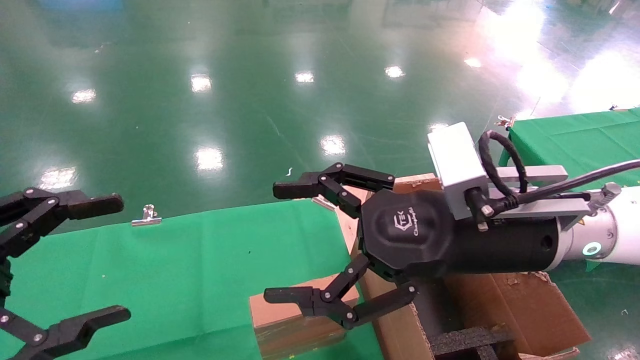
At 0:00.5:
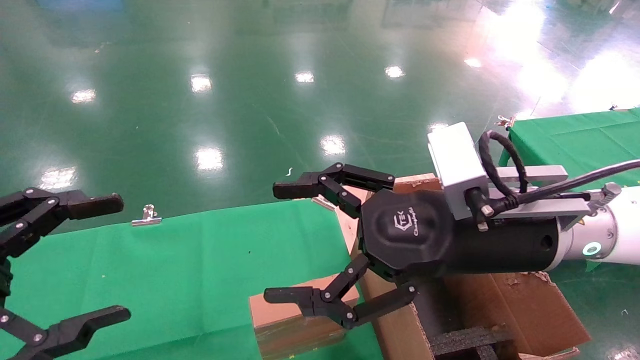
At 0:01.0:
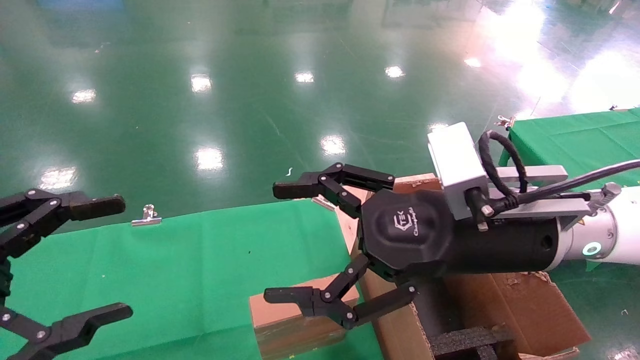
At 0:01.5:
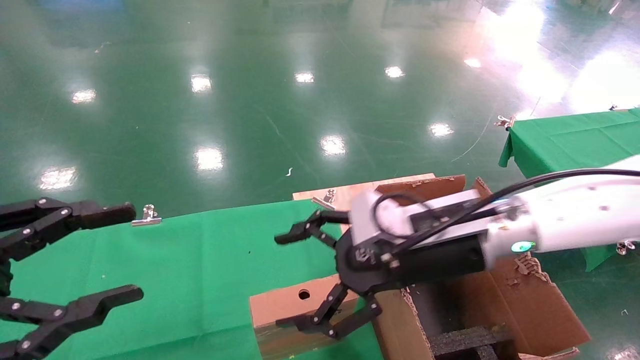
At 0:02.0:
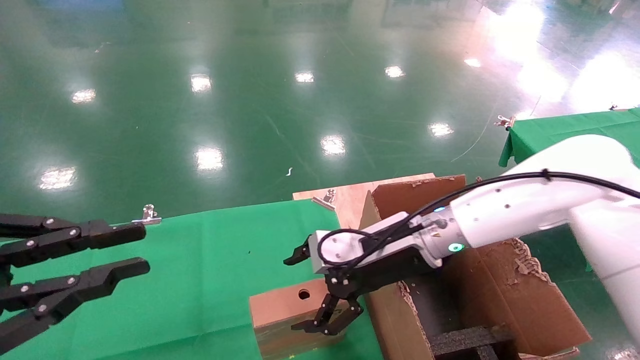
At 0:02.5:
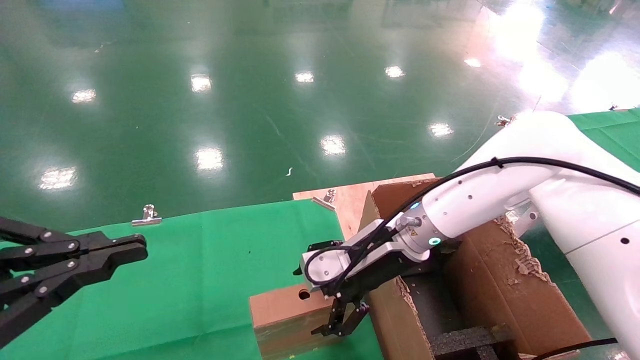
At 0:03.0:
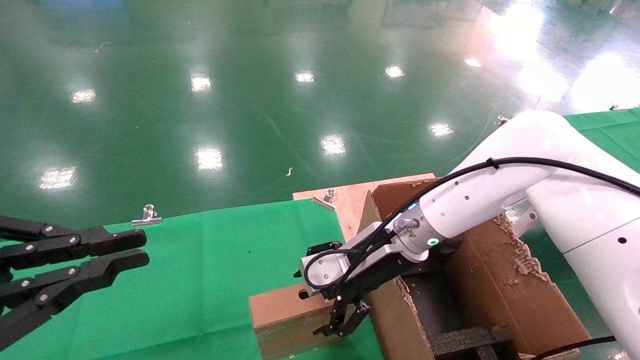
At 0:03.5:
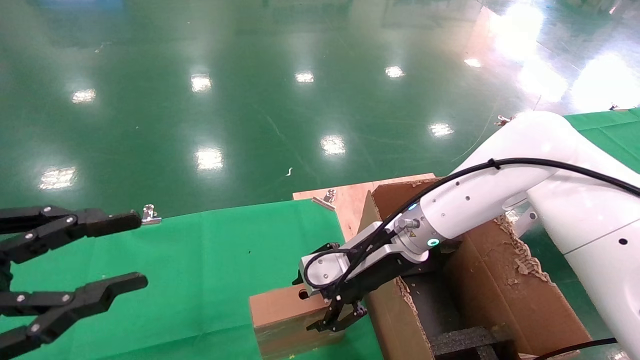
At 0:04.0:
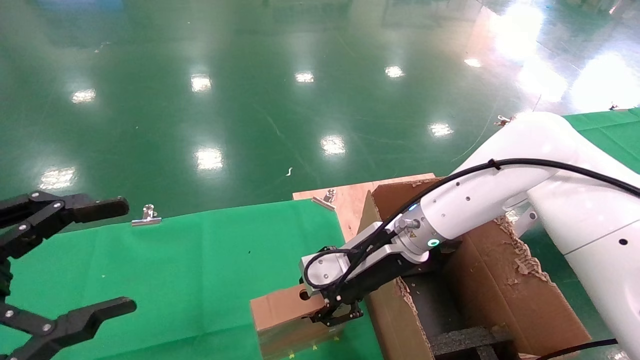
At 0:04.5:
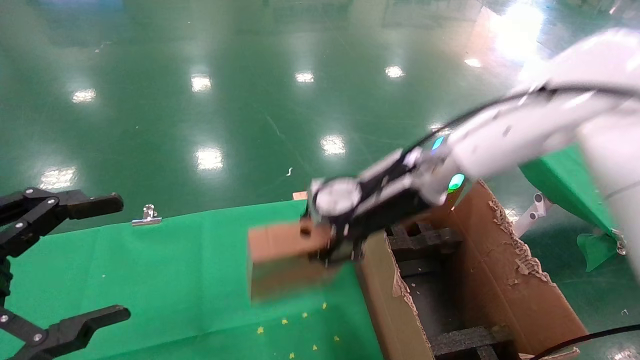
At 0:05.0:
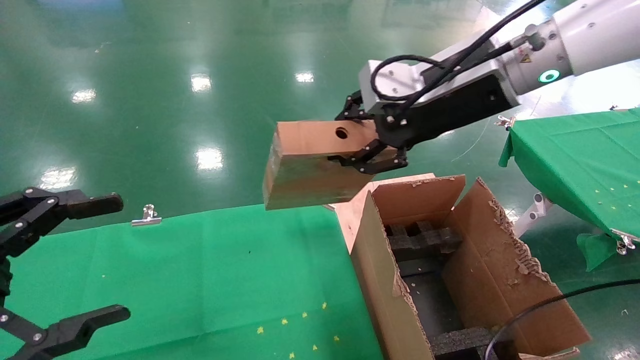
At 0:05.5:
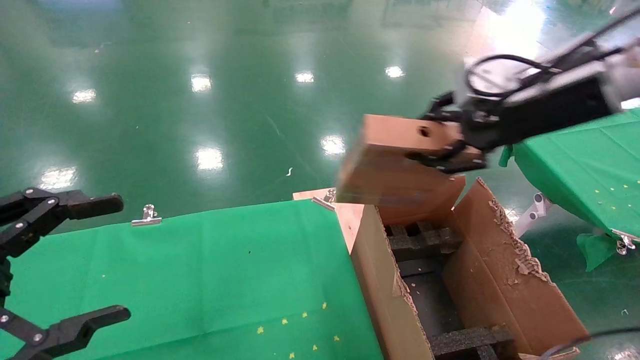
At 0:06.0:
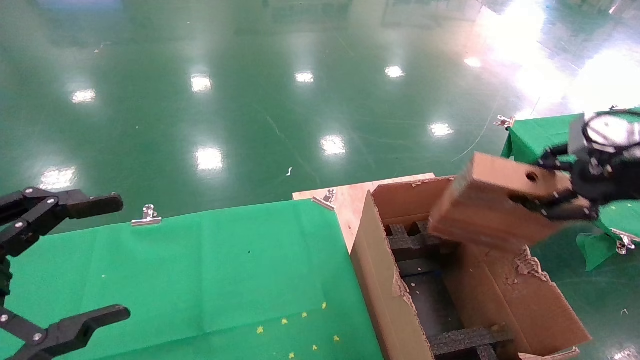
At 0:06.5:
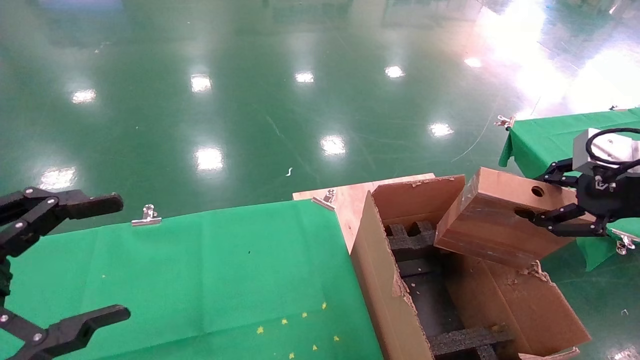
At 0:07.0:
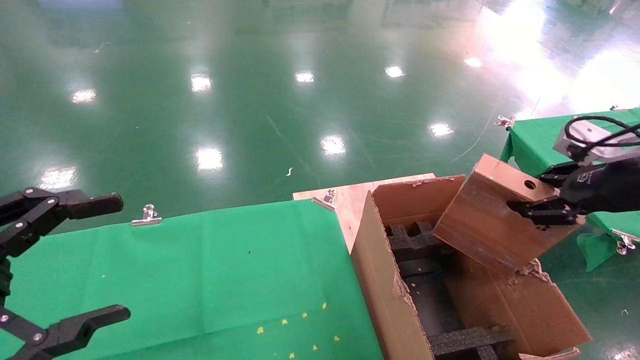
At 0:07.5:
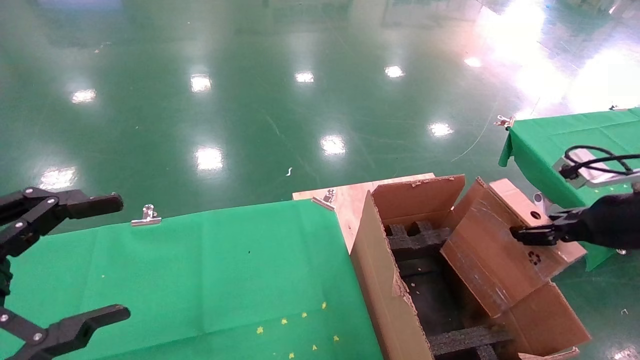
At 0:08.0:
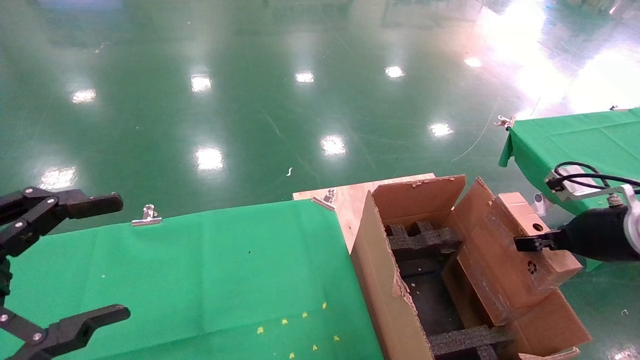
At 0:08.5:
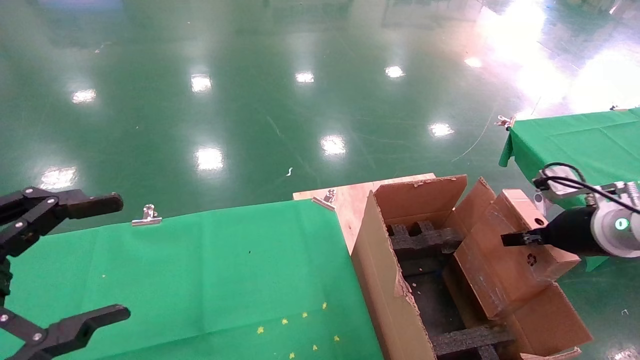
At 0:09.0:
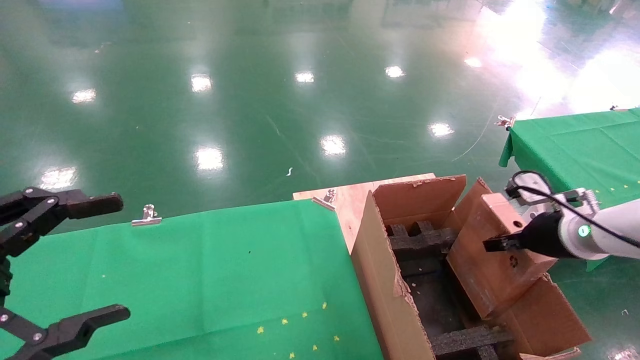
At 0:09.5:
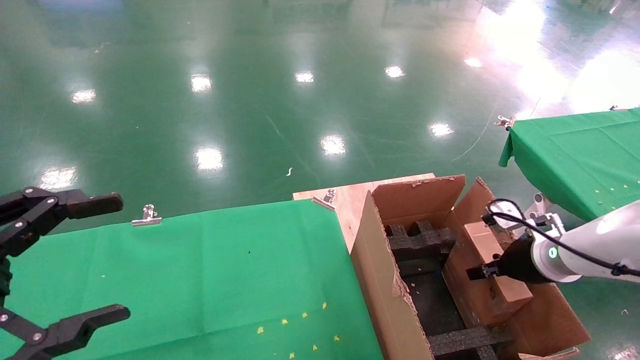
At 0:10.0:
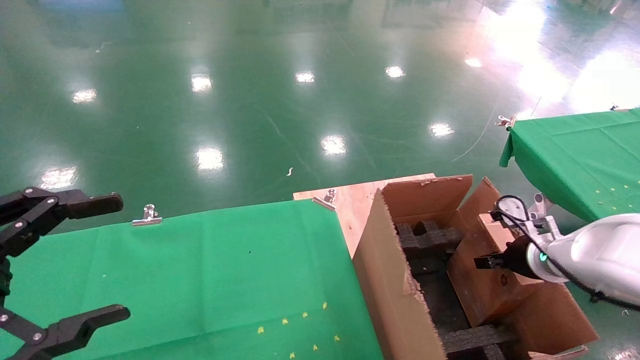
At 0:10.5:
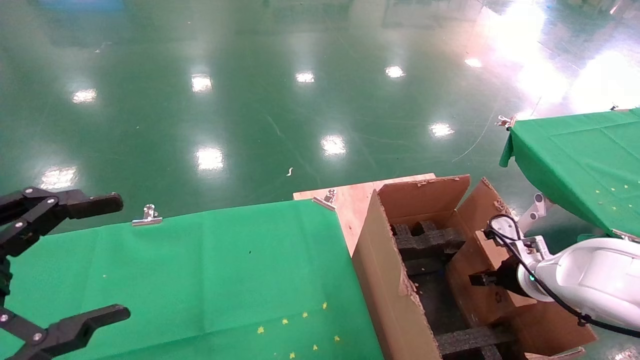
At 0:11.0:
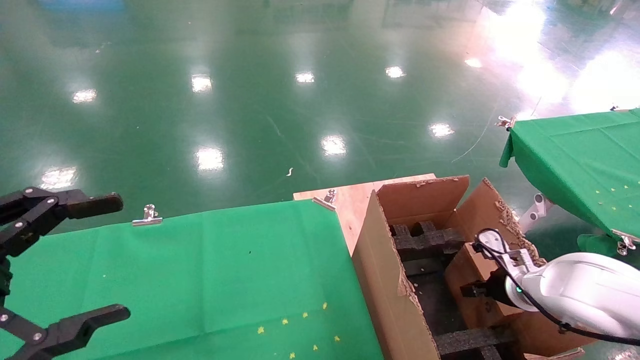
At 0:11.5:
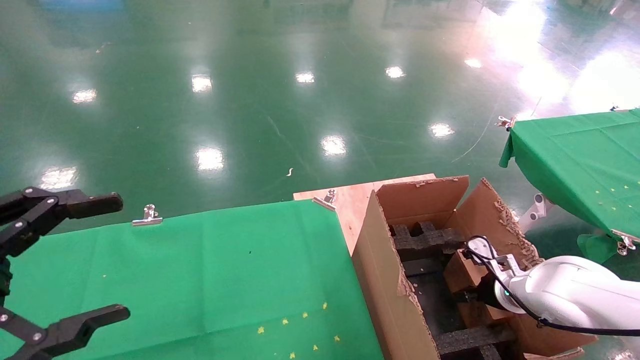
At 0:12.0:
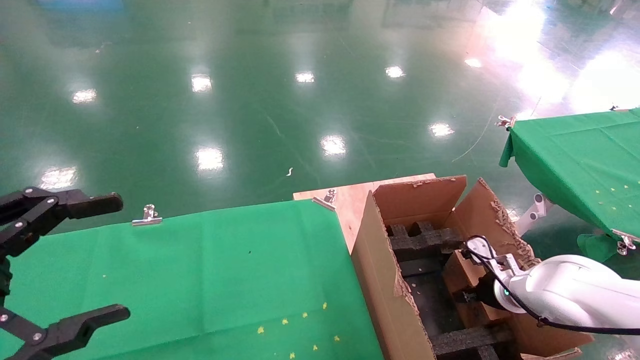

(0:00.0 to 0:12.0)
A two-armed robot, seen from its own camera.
Task of the whole recording: using a robotic arm to pick up a cardboard box and palace it the carton.
Step, 0:01.0 - 0:03.5: Pick up the mouse and the power cord paper box.
0:00.0 - 0:02.0: The right gripper travels forward and downward by roughly 15 cm, while the left gripper closes its fingers.
0:02.0 - 0:04.0: The left gripper opens its fingers; the right gripper closes up.
0:04.0 - 0:06.0: The right gripper is displaced to the right, upward and backward by about 35 cm.
0:06.0 - 0:08.0: The right gripper travels downward by about 10 cm.
0:08.0 - 0:10.0: The right gripper shifts about 10 cm downward and forward.
0:10.0 - 0:12.0: The right gripper heads downward, covering roughly 10 cm.

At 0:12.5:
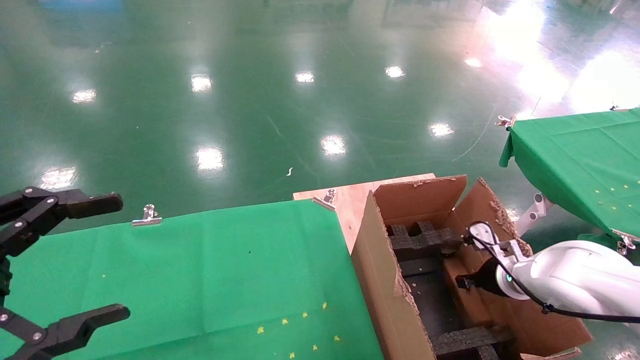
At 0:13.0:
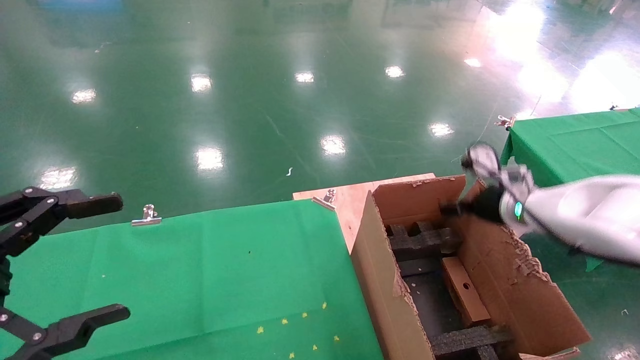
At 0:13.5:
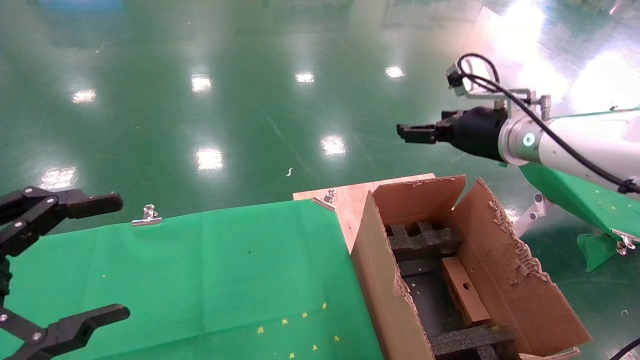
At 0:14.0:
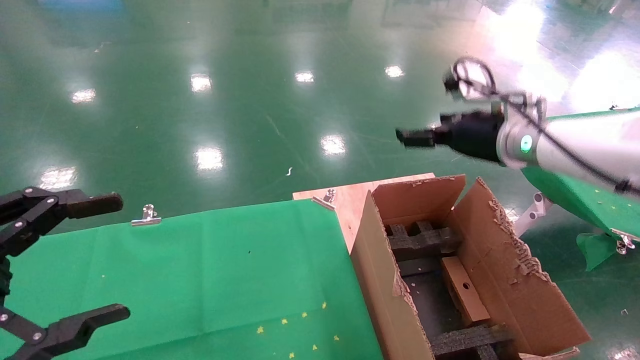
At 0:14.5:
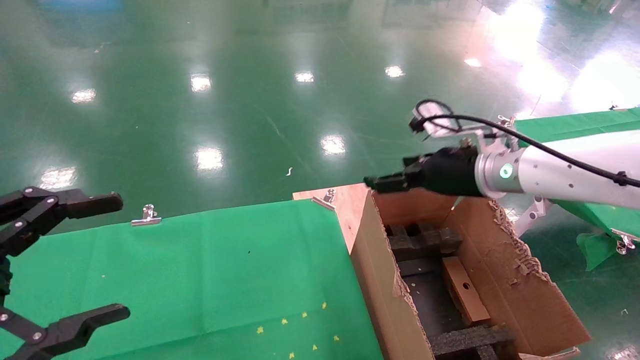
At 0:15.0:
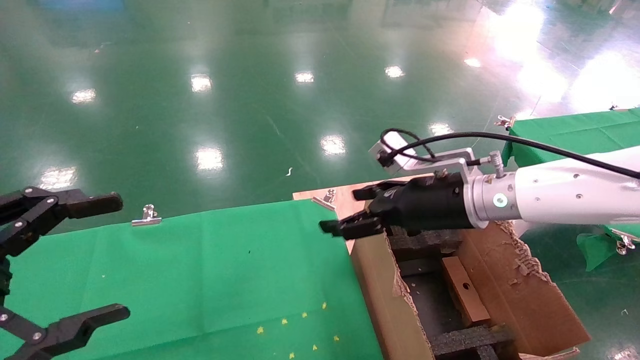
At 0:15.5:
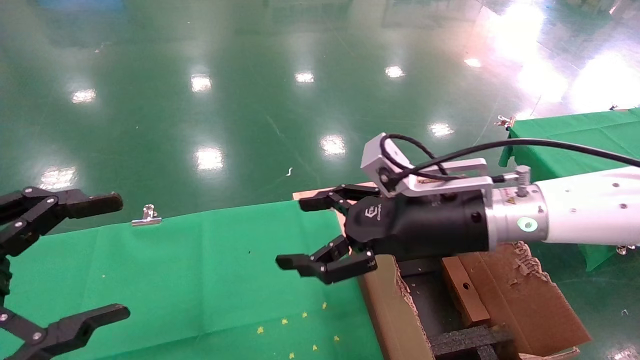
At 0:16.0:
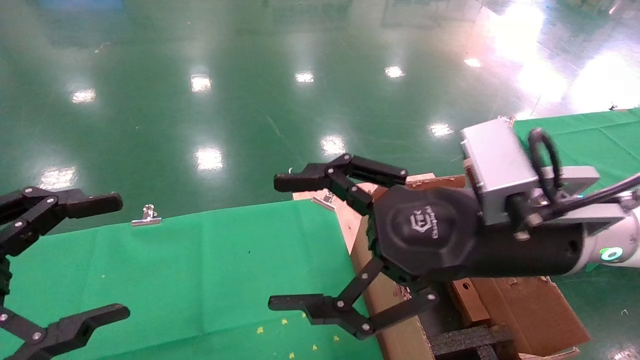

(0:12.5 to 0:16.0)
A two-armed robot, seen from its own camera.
Task of the whole recording: using a robotic arm to pick up a cardboard box and palace it the carton.
0:12.5 - 0:14.5: The right gripper is displaced upward and to the left by approximately 25 cm, and opens up.
0:14.5 - 0:16.0: The right gripper moves backward and to the left, some 15 cm.

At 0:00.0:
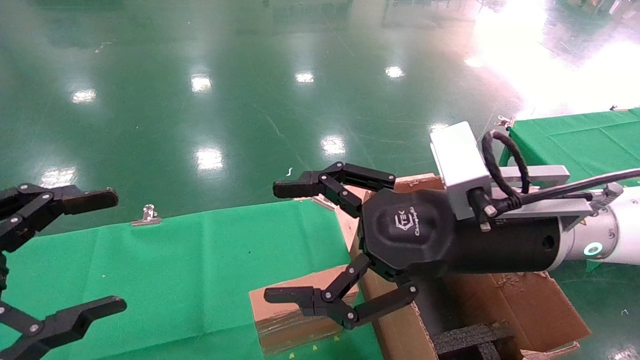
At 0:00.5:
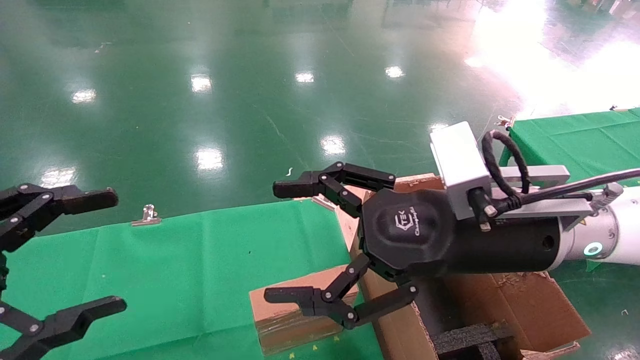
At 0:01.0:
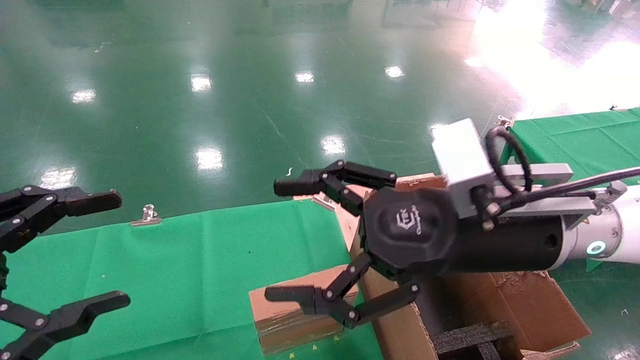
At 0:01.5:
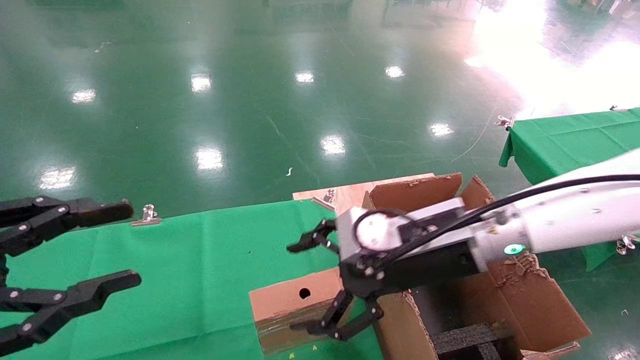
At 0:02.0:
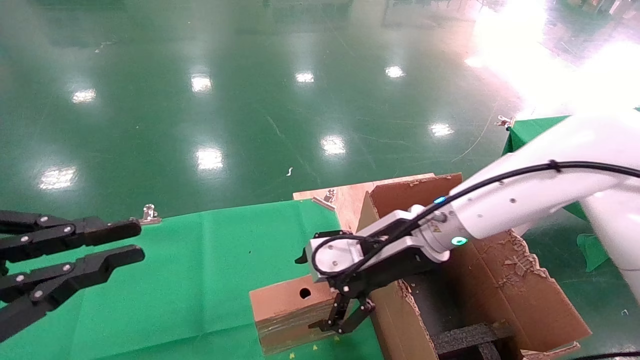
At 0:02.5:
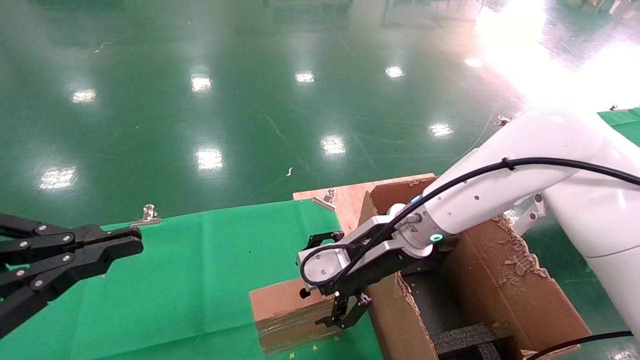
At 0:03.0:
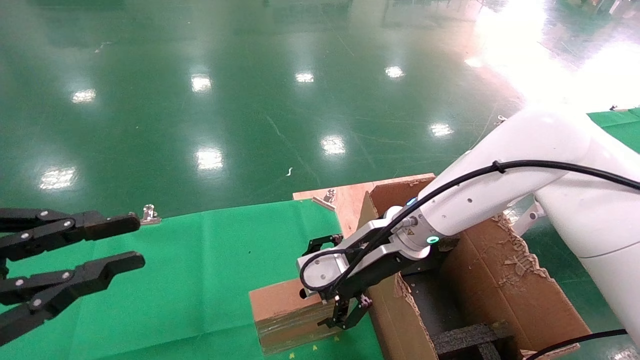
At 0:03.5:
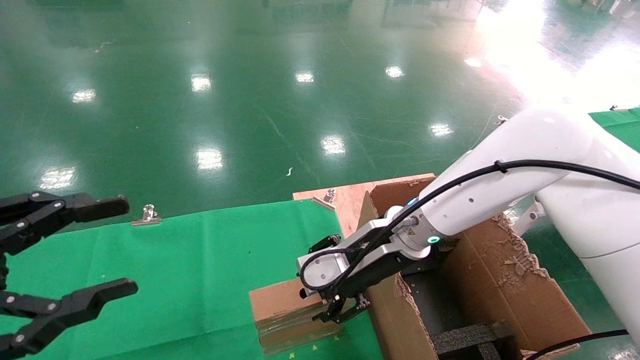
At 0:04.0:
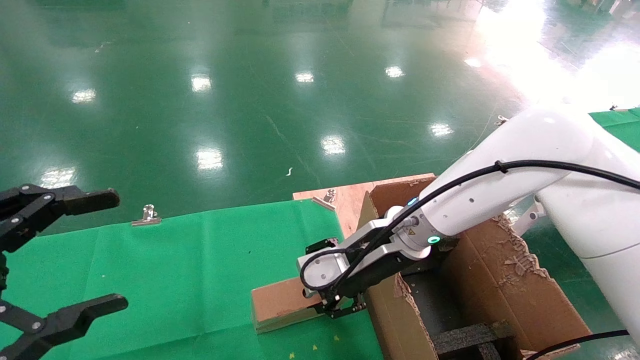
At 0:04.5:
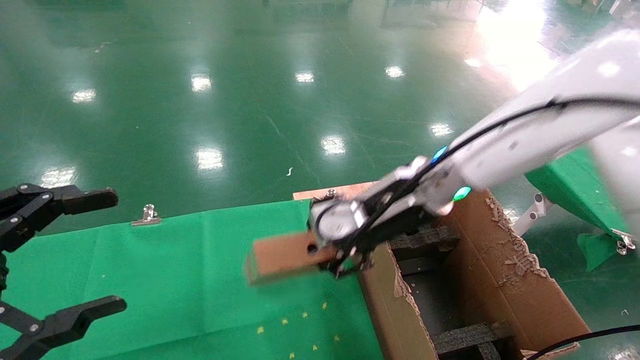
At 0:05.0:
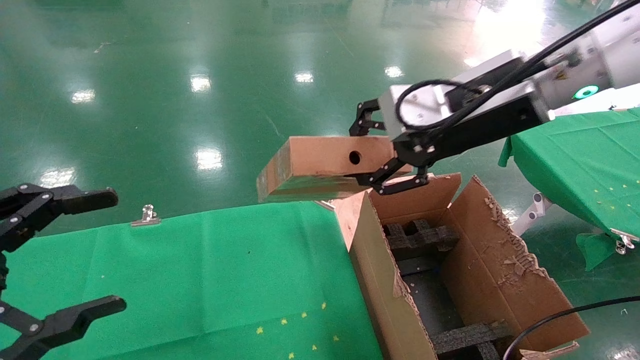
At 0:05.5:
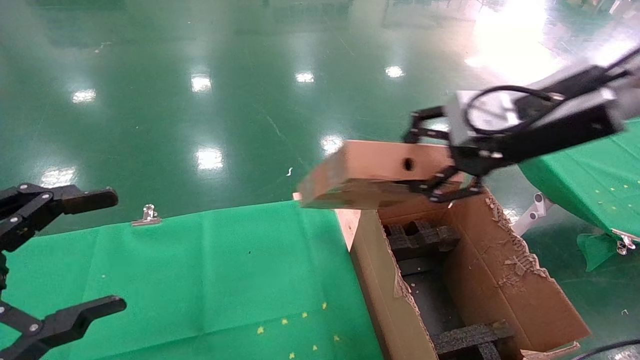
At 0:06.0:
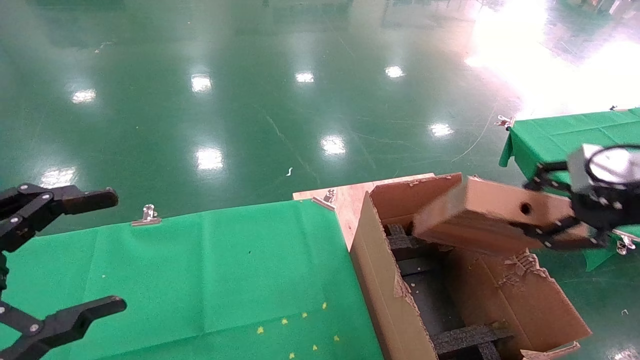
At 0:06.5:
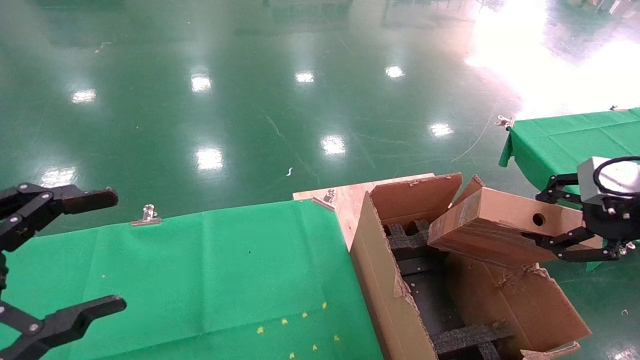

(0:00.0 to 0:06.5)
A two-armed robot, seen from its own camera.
Task of the whole recording: using a robotic arm to pick up a cardboard box and palace it the carton.
Step, 0:01.5 - 0:03.5: Pick up the mouse and the power cord paper box.
0:00.0 - 0:02.0: The left gripper closes its fingers. Meanwhile the right gripper travels forward and downward by about 10 cm.
0:02.0 - 0:04.5: The left gripper opens its fingers. The right gripper goes about 5 cm upward, and closes.
0:04.5 - 0:06.5: The right gripper heads to the right and backward, covering some 30 cm.
